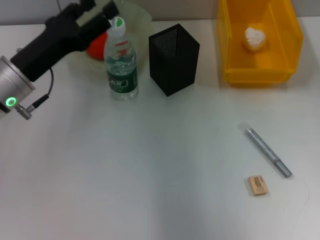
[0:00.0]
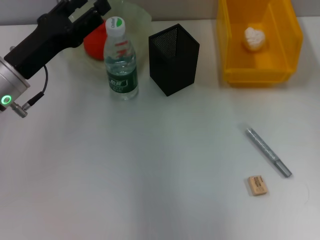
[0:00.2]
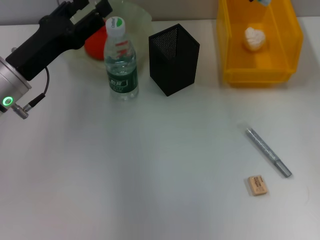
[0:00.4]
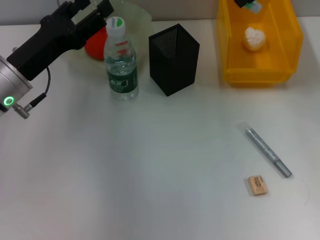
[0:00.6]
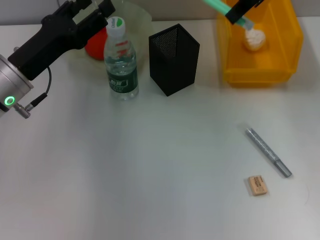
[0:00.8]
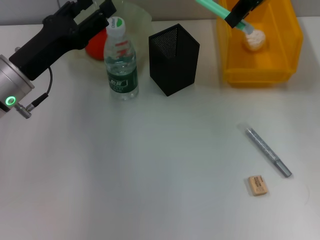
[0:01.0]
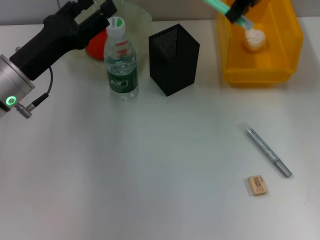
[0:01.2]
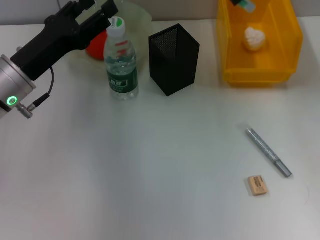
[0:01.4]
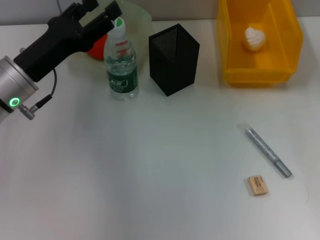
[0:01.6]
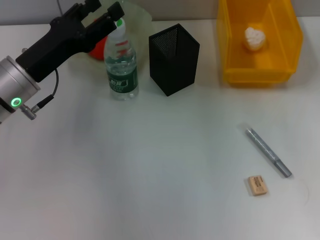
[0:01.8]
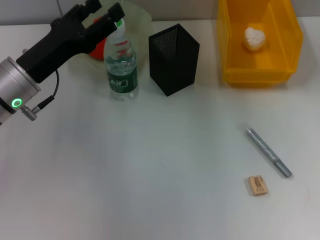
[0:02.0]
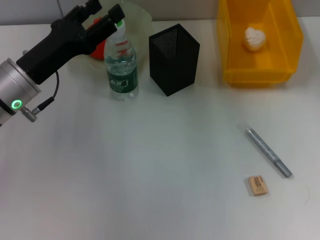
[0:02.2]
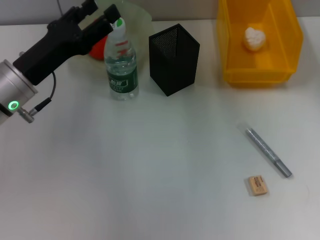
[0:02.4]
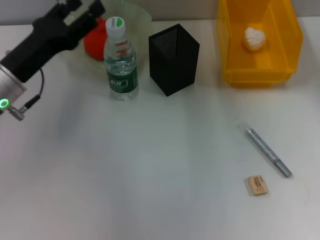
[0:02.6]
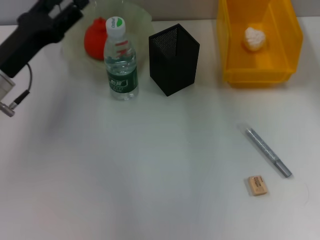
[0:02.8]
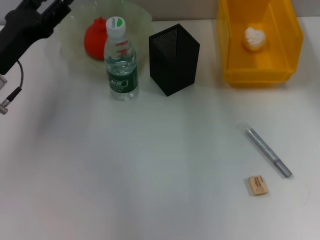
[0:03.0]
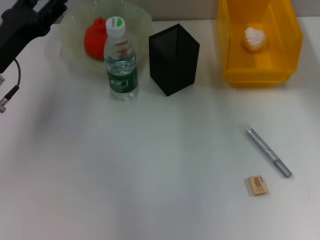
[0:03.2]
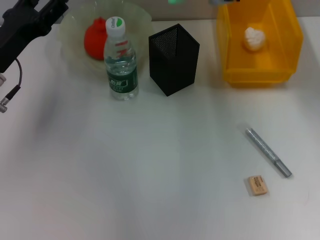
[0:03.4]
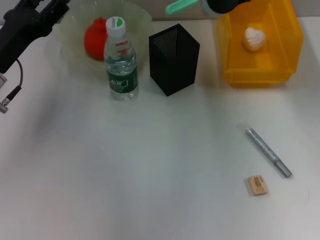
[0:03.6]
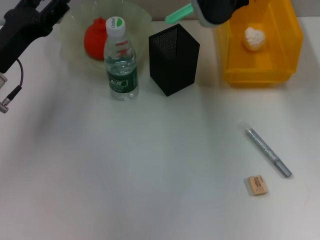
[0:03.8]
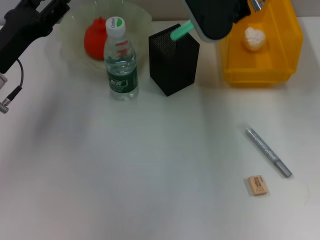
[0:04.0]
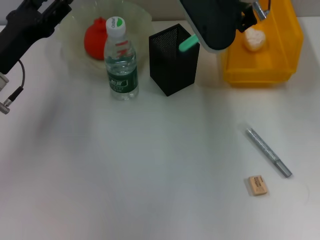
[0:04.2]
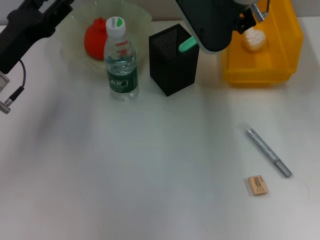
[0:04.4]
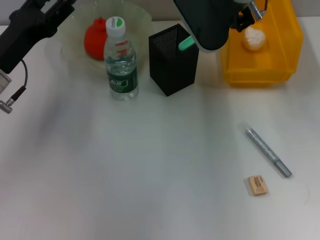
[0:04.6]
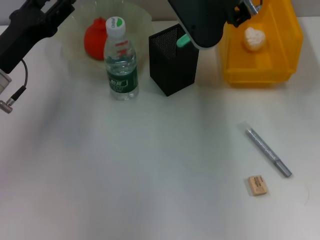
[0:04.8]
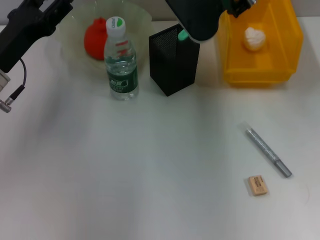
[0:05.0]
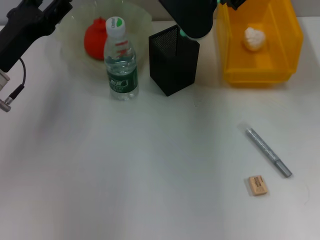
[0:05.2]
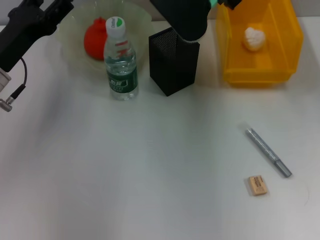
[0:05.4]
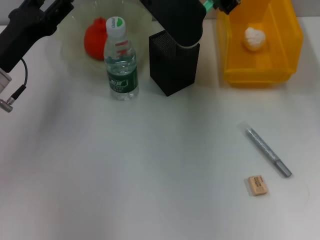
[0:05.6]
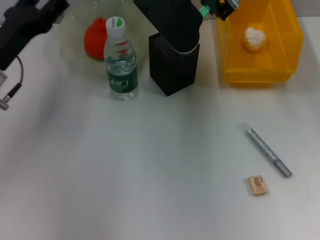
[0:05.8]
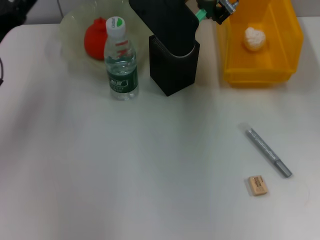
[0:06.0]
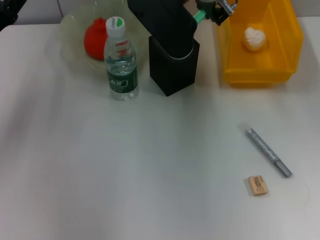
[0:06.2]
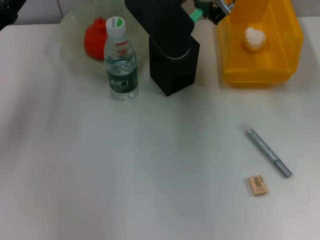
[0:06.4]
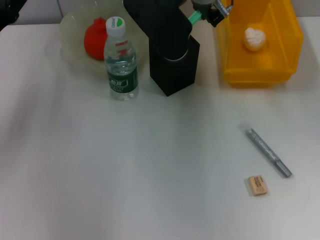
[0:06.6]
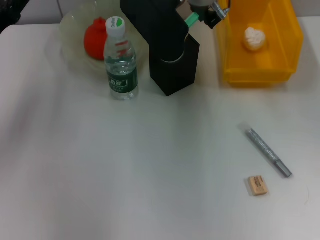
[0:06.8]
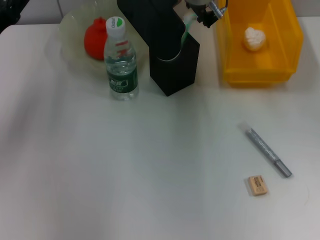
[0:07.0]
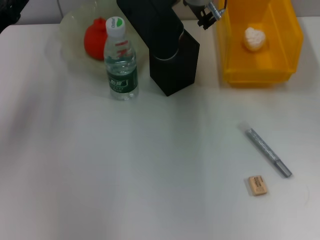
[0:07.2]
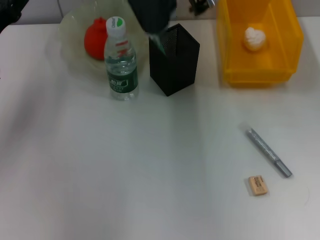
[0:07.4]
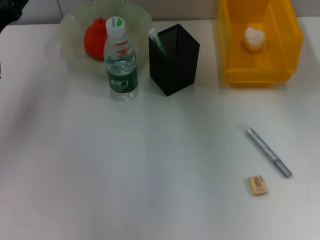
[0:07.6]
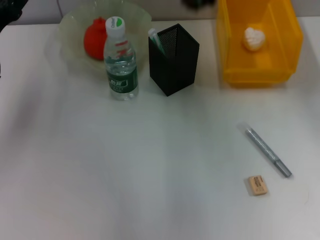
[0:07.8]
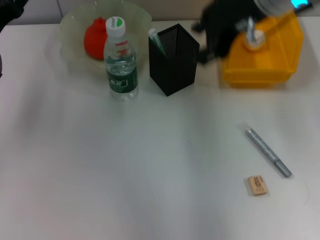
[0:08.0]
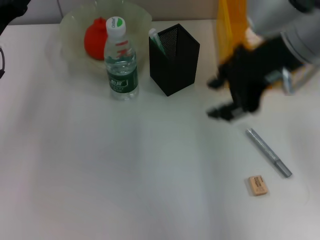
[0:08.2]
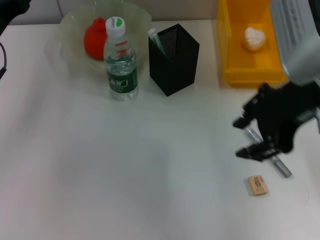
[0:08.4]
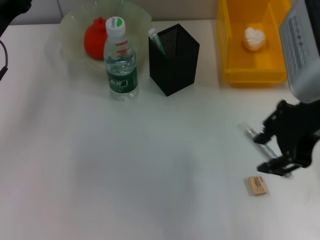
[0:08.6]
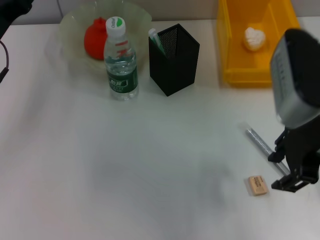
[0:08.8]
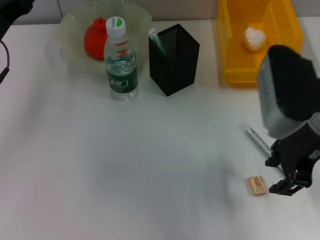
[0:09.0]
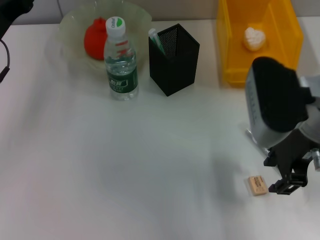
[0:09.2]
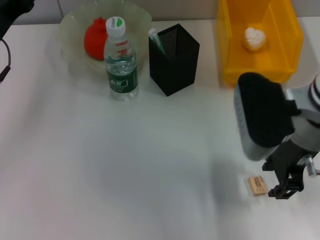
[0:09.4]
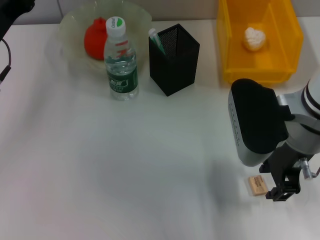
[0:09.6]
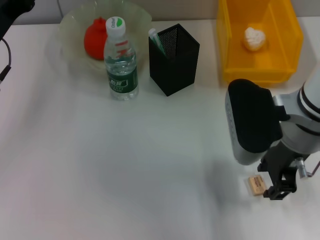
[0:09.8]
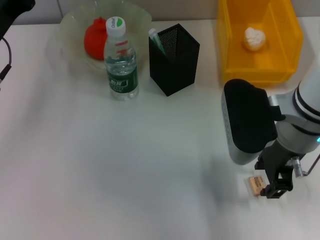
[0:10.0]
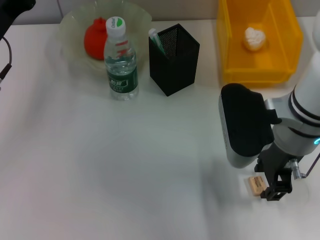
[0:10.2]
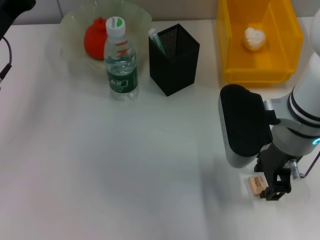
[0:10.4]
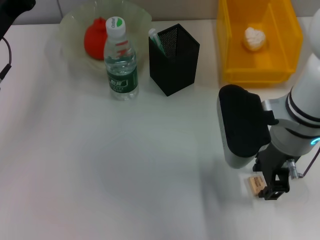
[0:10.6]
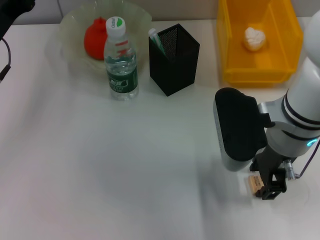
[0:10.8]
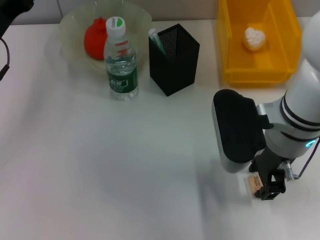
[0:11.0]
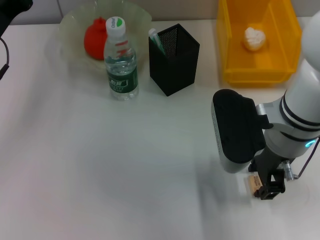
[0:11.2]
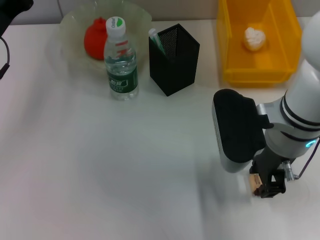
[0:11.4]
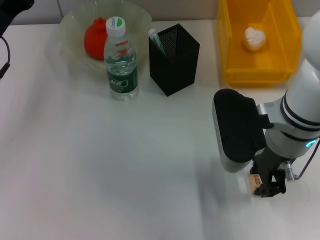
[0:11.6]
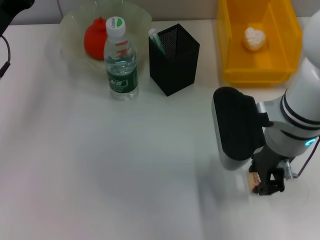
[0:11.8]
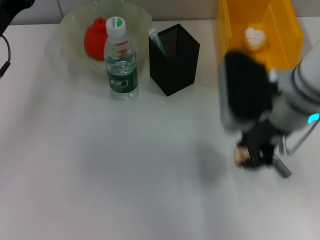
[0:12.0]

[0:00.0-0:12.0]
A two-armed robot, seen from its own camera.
Step, 0:00.0 to 0:07.4: Place the blue utility knife into the pen holder with the right hand.
Step, 0:07.6 to 0:11.4: Grab the eraser with the right hand.
0:00.0 to 0:01.6: The right gripper moves to the left, some 5 cm.
0:03.0 to 0:04.4: The right gripper is displaced downward by roughly 5 cm.
0:04.4 to 0:06.0: The right gripper moves to the left, some 5 cm.
0:06.0 to 0:07.6: The right gripper heads upward, covering about 5 cm, and opens.
0:07.6 to 0:09.0: The right gripper heads backward, downward and to the right, covering approximately 20 cm.
0:09.0 to 0:10.4: The right gripper ends up some 5 cm from where it was.
0:10.4 to 0:12.0: There are only small adjustments of the grippers.

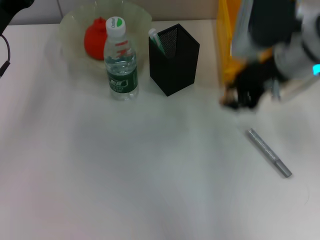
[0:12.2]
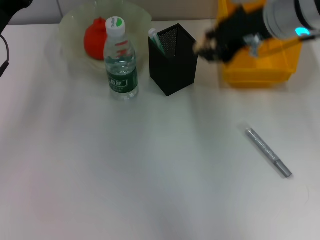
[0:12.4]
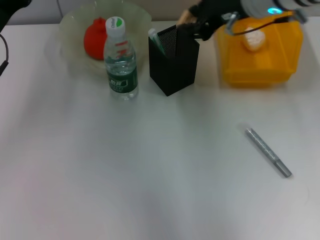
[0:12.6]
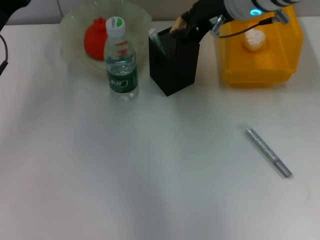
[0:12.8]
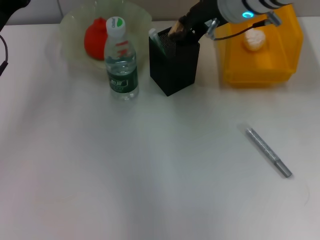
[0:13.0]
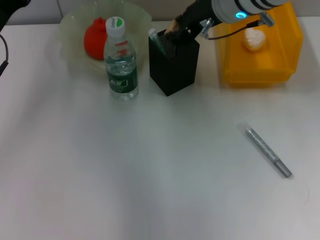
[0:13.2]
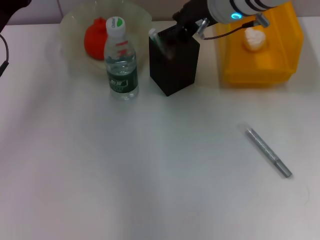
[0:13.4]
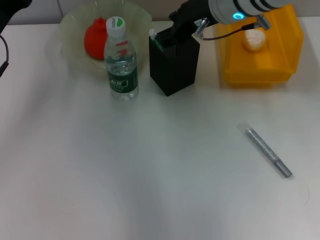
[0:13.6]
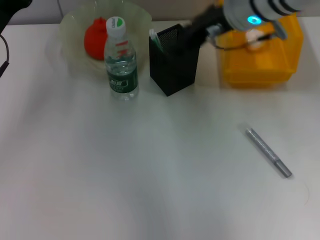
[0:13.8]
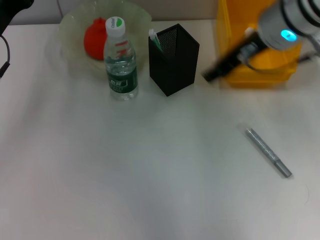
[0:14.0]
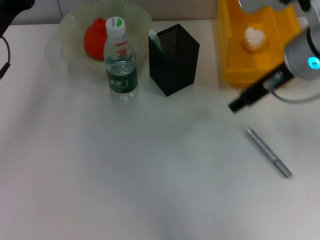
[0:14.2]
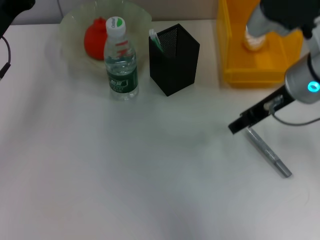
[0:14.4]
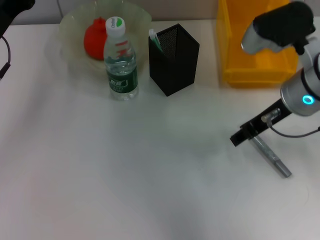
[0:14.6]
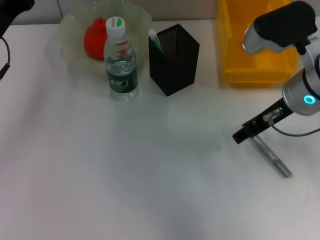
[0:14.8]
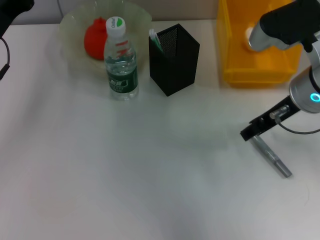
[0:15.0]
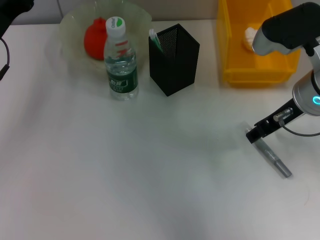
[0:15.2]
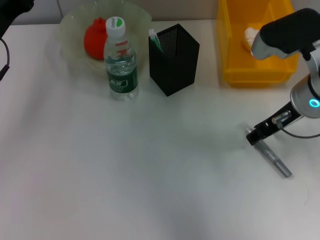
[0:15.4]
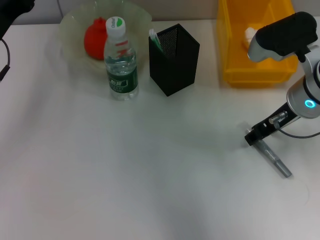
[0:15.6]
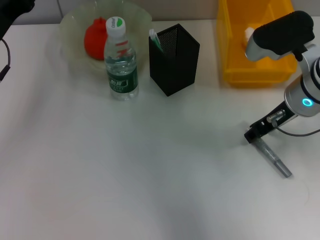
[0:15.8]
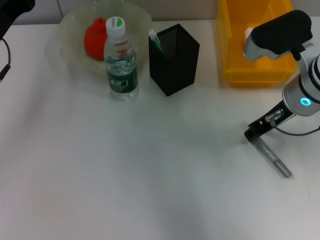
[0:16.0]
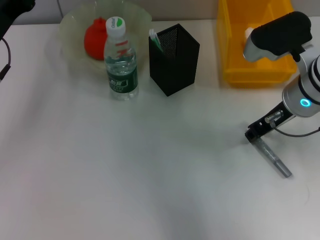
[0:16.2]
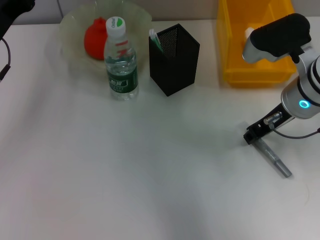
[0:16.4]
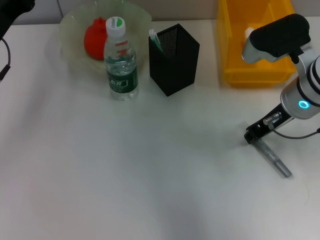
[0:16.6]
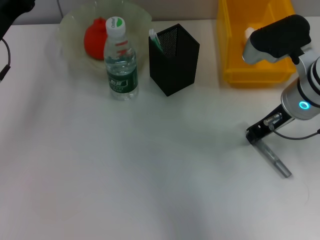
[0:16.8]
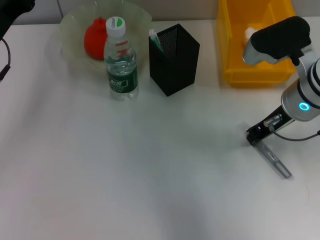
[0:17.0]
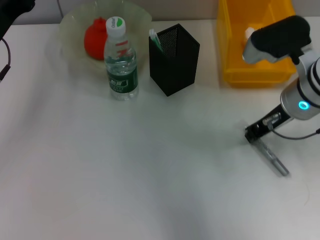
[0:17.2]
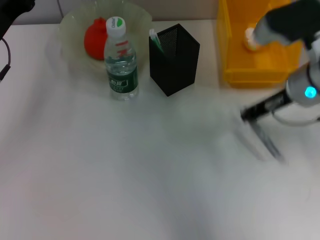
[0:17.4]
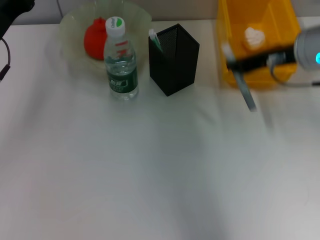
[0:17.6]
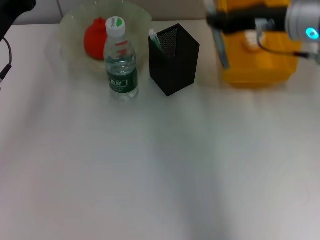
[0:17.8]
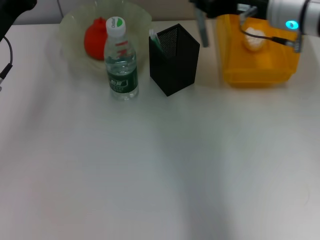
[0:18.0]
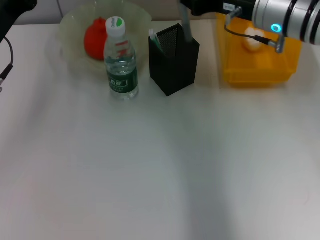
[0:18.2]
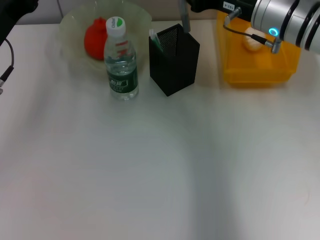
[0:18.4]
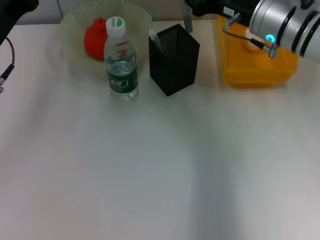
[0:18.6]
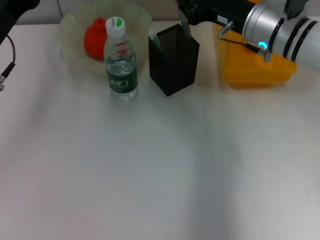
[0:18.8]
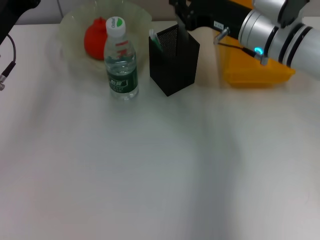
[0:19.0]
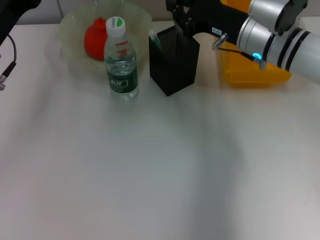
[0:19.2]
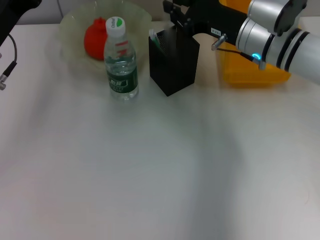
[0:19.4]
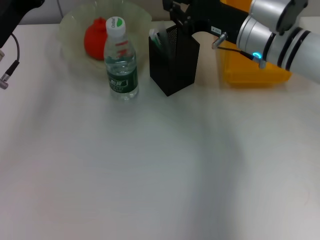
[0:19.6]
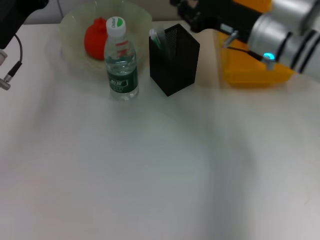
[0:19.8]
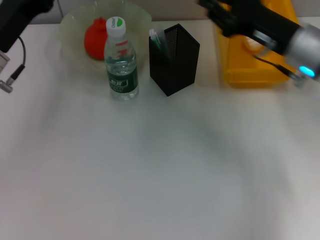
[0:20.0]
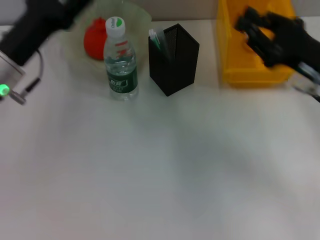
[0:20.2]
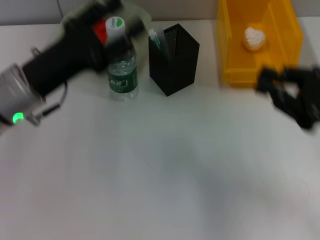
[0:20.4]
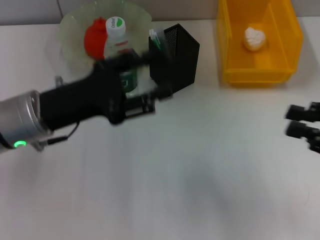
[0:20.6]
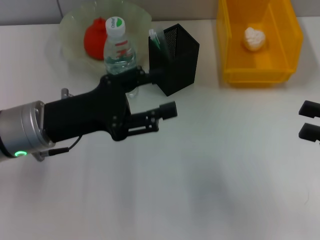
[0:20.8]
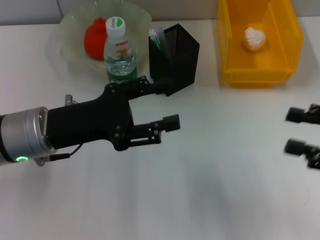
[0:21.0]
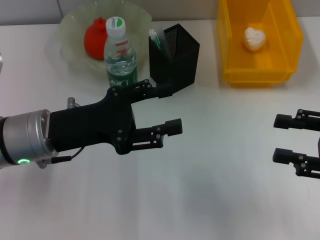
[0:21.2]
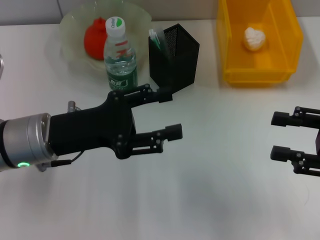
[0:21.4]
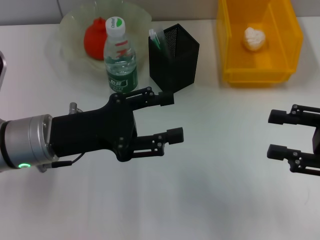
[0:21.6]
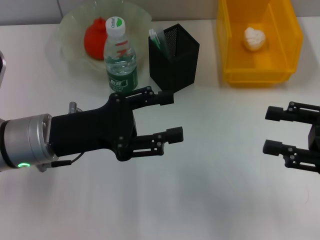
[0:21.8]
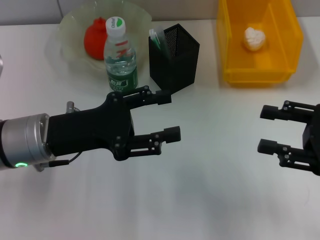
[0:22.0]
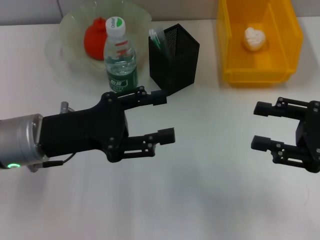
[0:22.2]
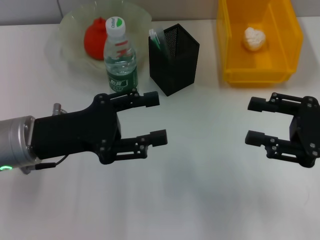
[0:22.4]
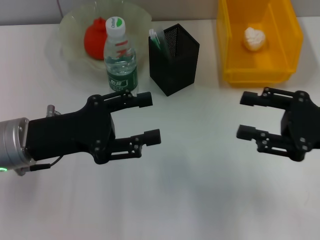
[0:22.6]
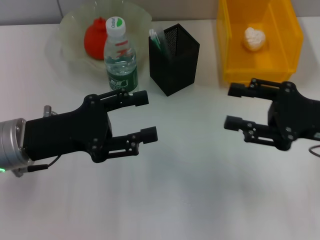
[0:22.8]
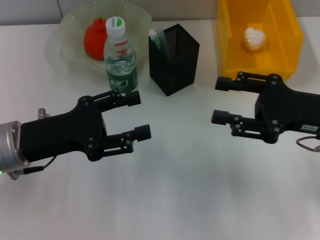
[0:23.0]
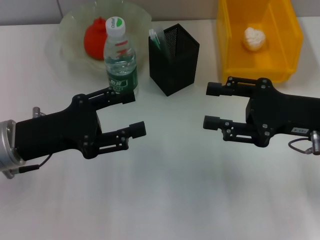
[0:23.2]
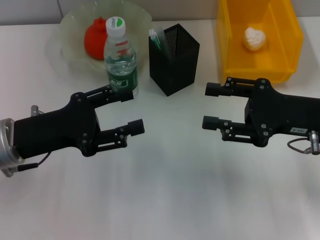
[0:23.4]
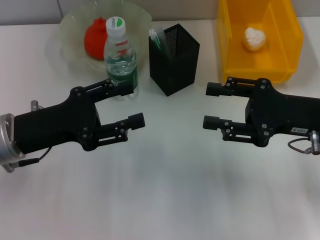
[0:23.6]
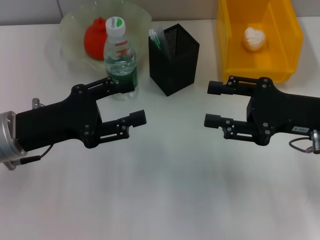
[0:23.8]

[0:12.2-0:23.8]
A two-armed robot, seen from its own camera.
Step, 0:12.2 to 0:13.8: Put the eraser into the pen holder with the right hand.
Step, 0:14.0 to 0:17.0: Grab the gray glue with the right hand.
Step, 0:17.2 to 0:19.6: Place the gray glue into the pen holder with the right hand.
0:12.2 to 0:13.6: The right gripper shifts some 10 cm forward and to the left.
0:13.6 to 0:15.0: The right gripper heads backward and to the right, covering approximately 10 cm.
0:15.0 to 0:16.6: The right gripper closes its fingers.
0:16.6 to 0:18.0: The right gripper travels upward by about 5 cm.
0:18.0 to 0:19.4: The right gripper heads downward, covering some 5 cm.
0:19.4 to 0:21.0: The left gripper moves backward and to the right, roughly 10 cm. The right gripper goes approximately 25 cm backward and to the right, and opens up.
0:21.0 to 0:22.4: The grippers stay close to where they were, moving slightly.
0:22.4 to 0:23.8: The right gripper moves about 5 cm.
